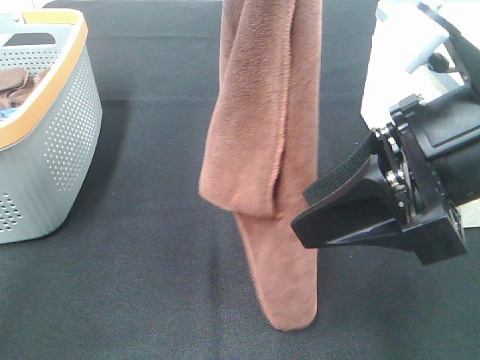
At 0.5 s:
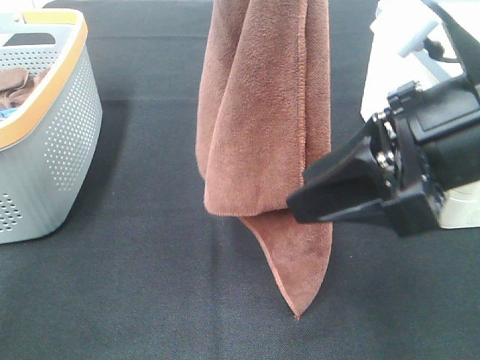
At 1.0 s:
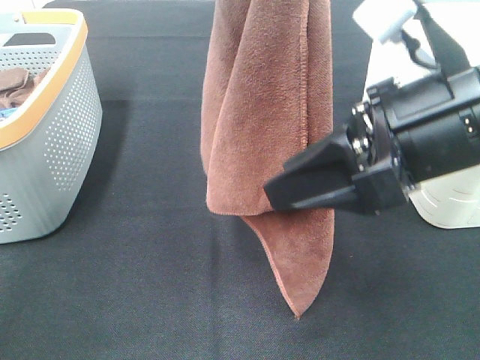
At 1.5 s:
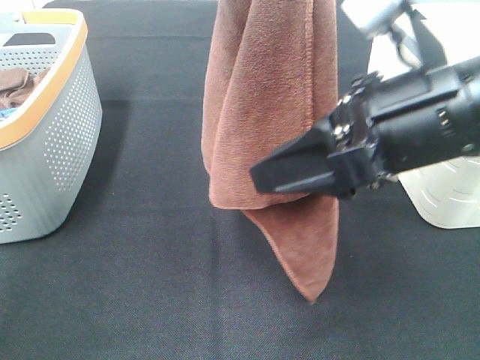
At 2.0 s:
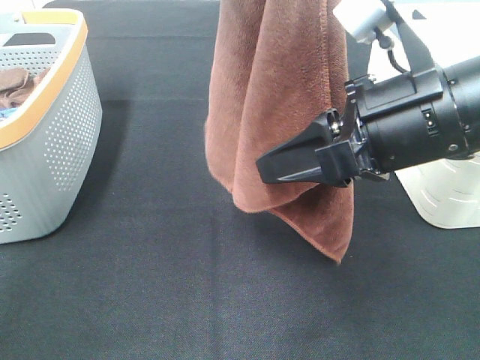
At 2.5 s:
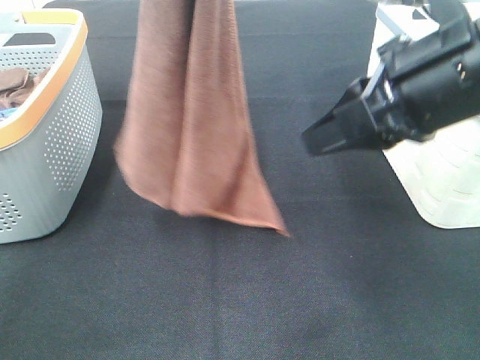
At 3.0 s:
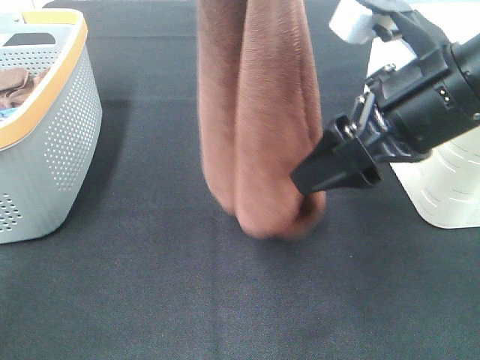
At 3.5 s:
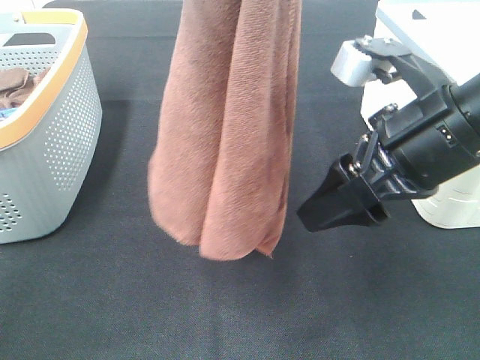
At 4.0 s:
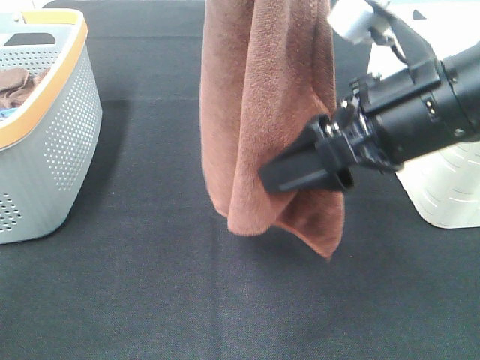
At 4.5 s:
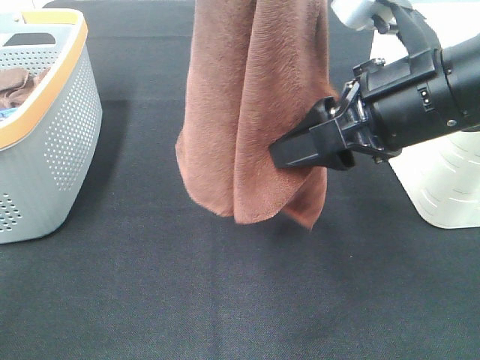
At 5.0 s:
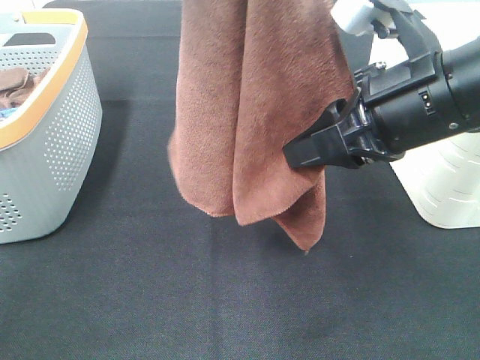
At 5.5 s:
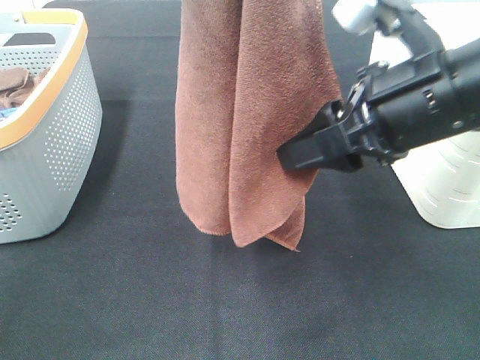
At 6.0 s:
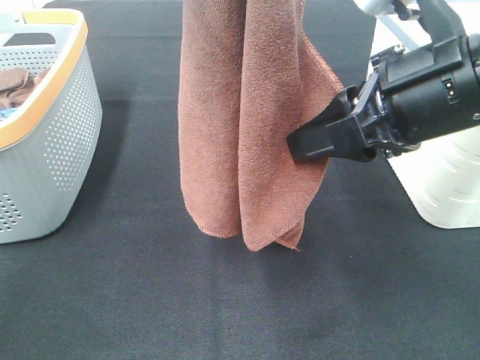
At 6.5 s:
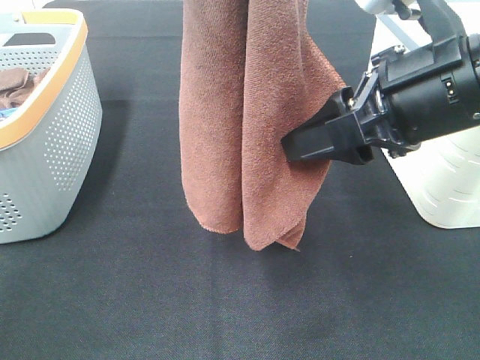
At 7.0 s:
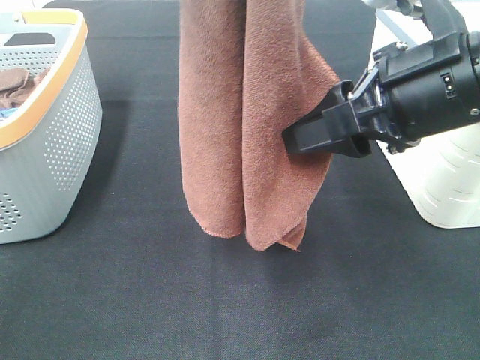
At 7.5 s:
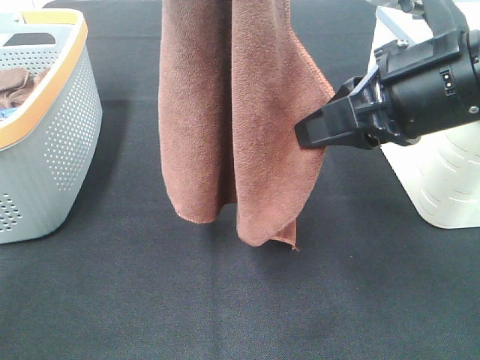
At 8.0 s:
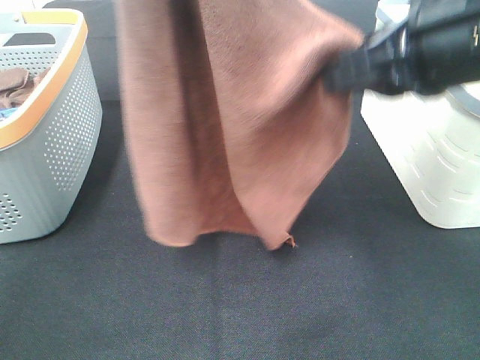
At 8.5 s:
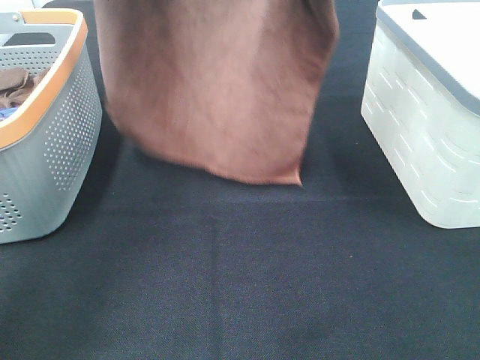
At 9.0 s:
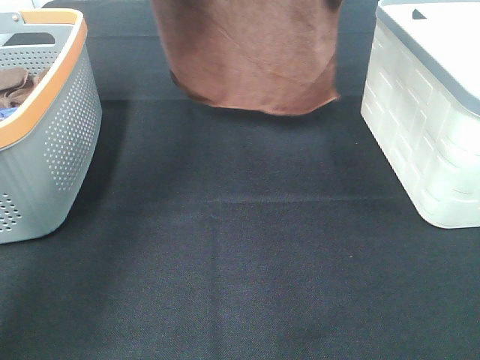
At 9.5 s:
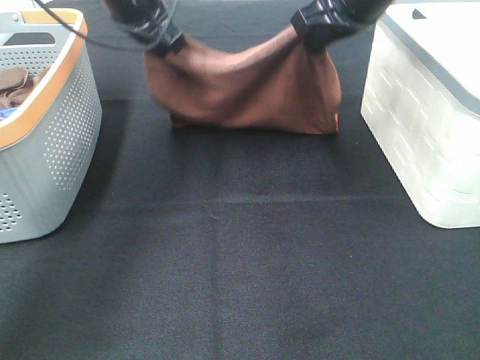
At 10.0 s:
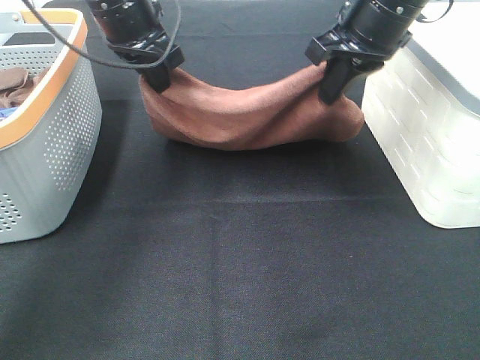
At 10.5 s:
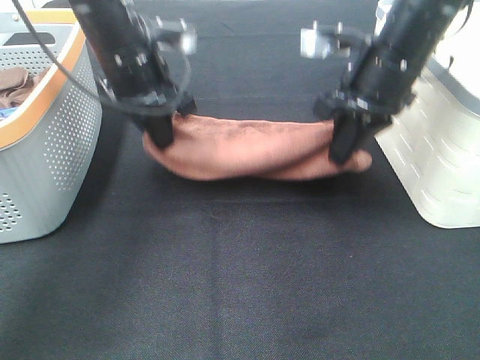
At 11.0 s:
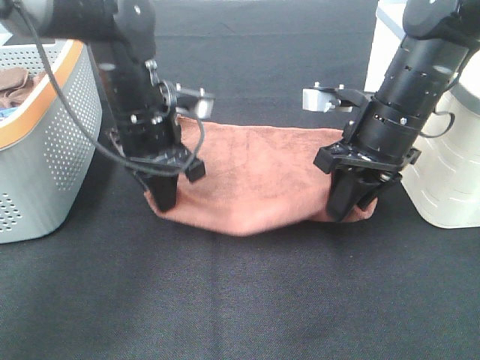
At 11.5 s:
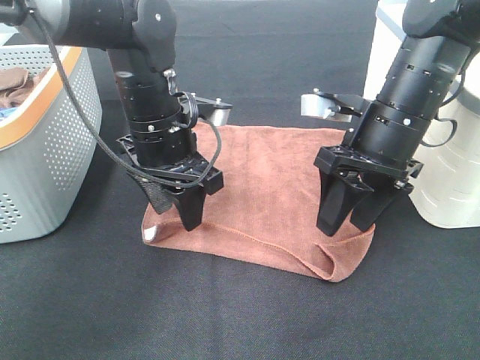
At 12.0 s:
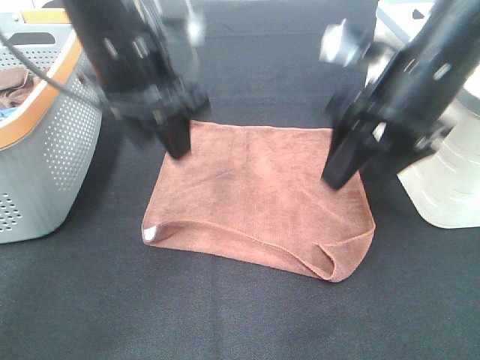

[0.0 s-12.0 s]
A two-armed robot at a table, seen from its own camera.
Task of the whole recording: Remove the towel and place it.
Step, 0.0 to 3.0 s: Right hand: grab a corner of the brown towel and straighten it.
Step, 3.5 to 4.5 s: Right hand: spread the brown towel flat on the table.
0.0 to 2.0 s: The right gripper closes up.
2.0 to 4.0 s: The right gripper opens its fingers.
4.0 to 6.0 s: The right gripper closes.
8.0 to 10.0 s: The right gripper goes about 15 cm forward; the left gripper heads downward and forward, covering about 25 cm.
10.0 to 12.0 s: Both grippers move backward, approximately 10 cm. The left gripper travels downward and back again, some 10 cm each way, and opens its fingers; the right gripper opens its fingers.

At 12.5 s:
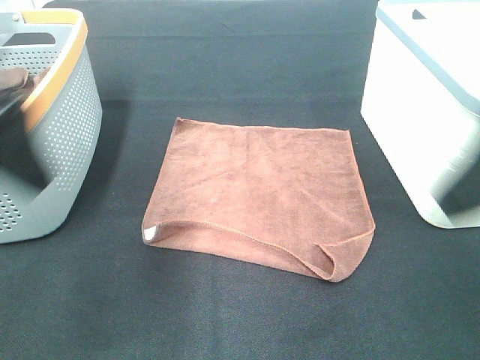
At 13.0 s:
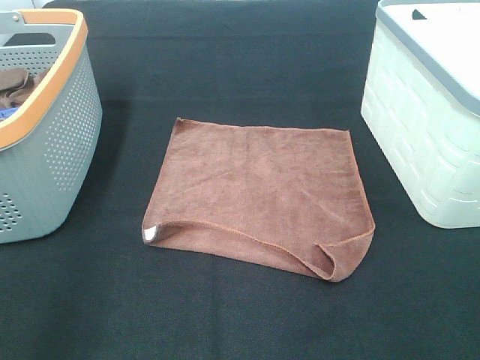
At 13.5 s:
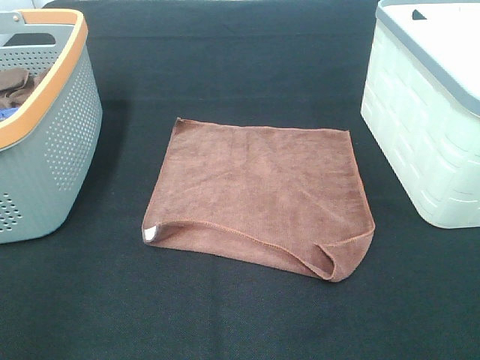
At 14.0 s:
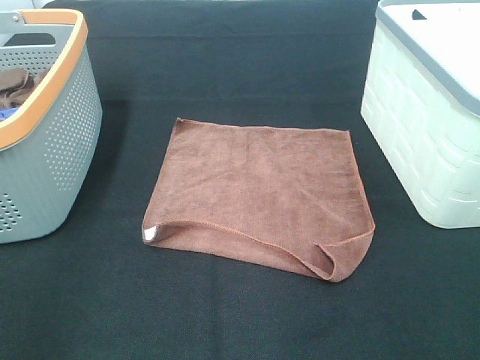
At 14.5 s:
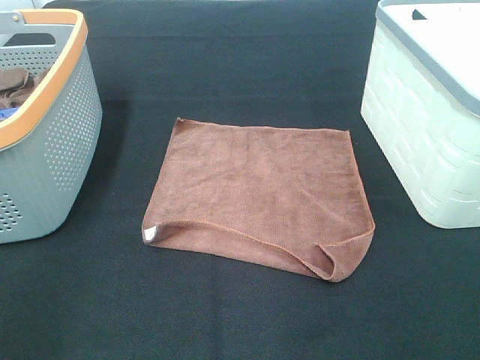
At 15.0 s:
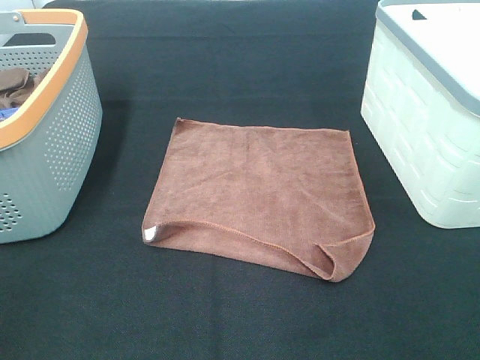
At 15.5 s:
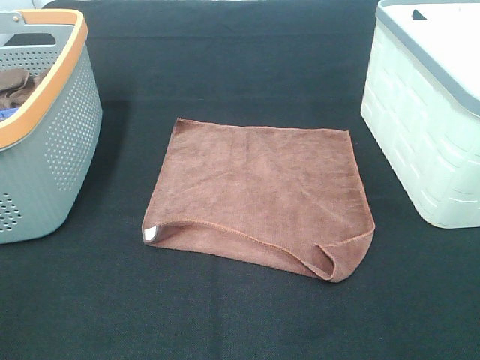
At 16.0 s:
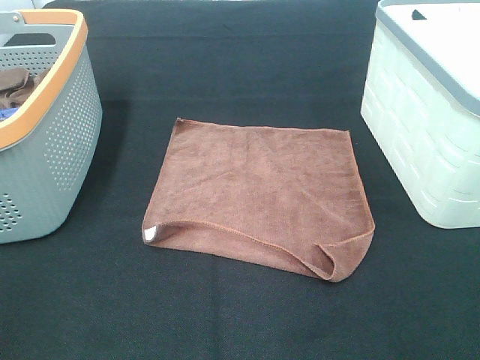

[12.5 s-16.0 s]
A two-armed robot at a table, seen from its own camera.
Task of the whole recording: Remove the towel and place it.
12.5 to 14.5 s: The right gripper heads backward and to the right, covering roughly 15 cm, while the left gripper moves backward and to the left, roughly 20 cm.

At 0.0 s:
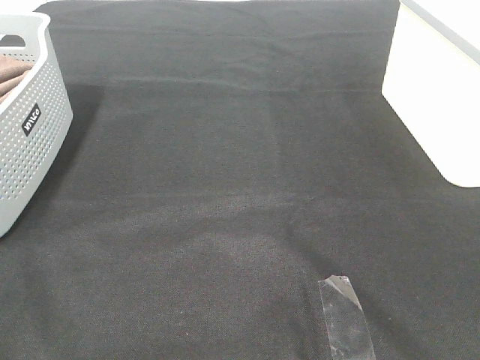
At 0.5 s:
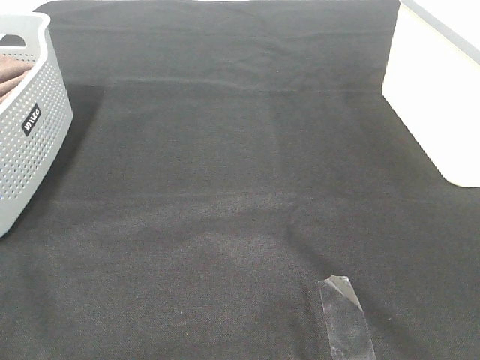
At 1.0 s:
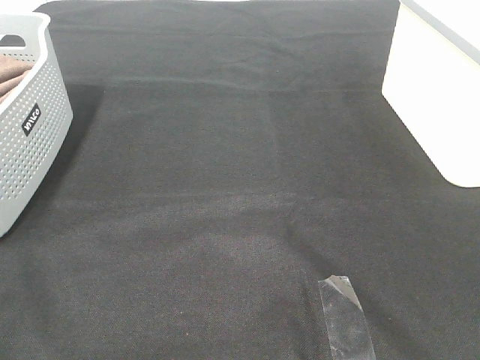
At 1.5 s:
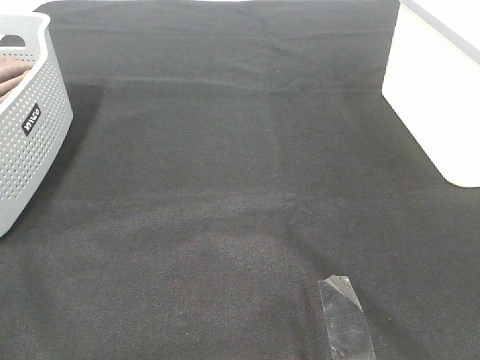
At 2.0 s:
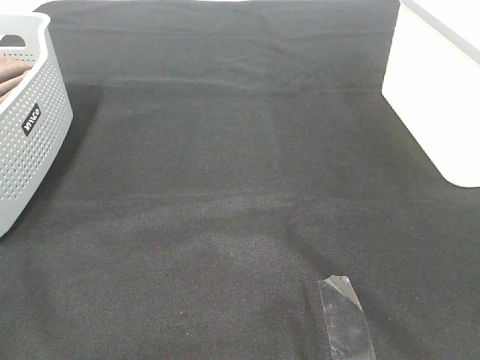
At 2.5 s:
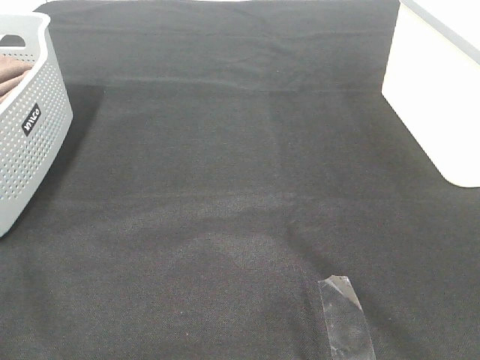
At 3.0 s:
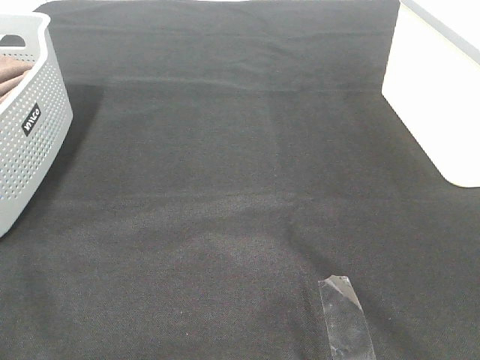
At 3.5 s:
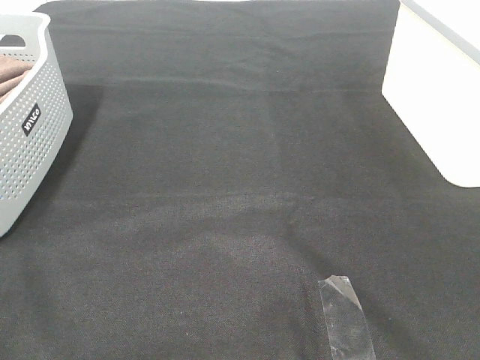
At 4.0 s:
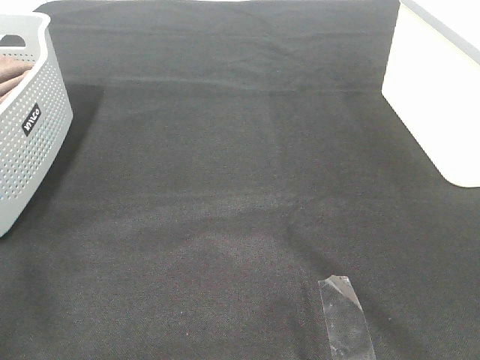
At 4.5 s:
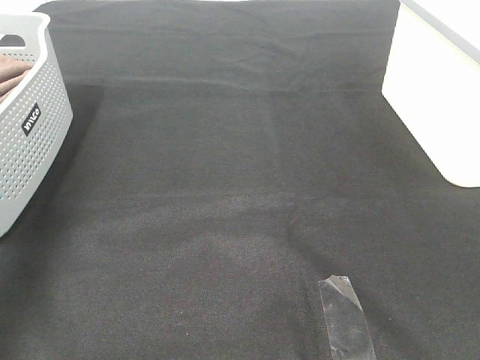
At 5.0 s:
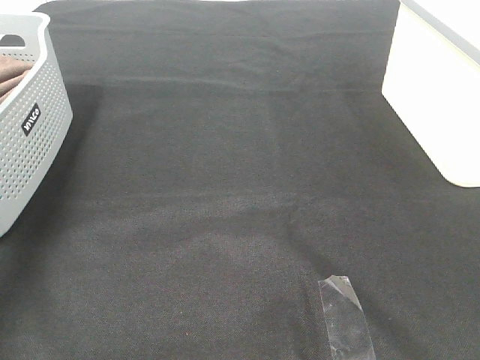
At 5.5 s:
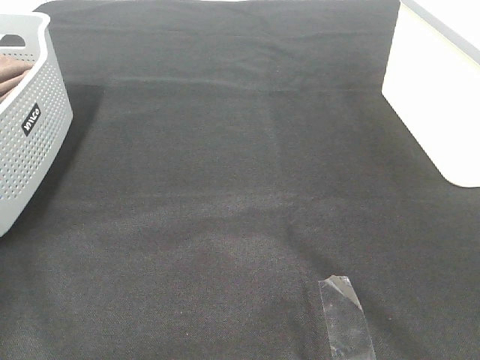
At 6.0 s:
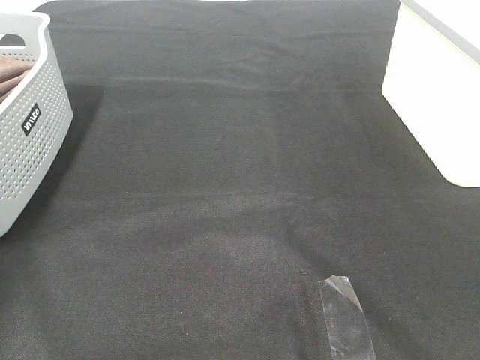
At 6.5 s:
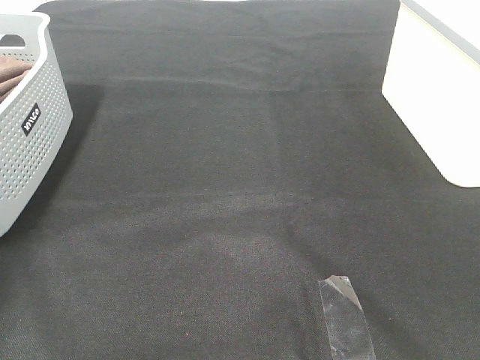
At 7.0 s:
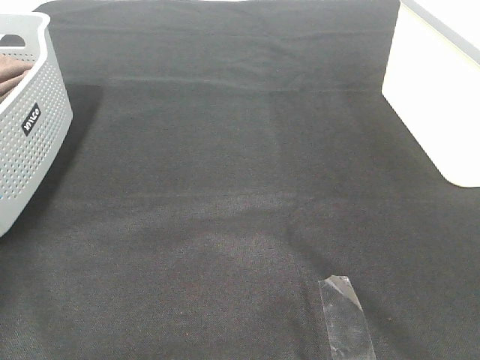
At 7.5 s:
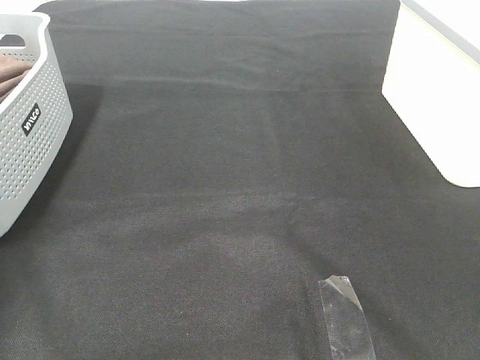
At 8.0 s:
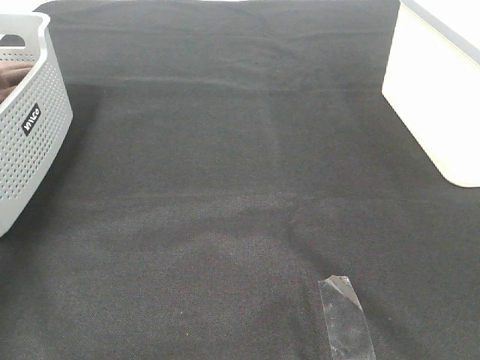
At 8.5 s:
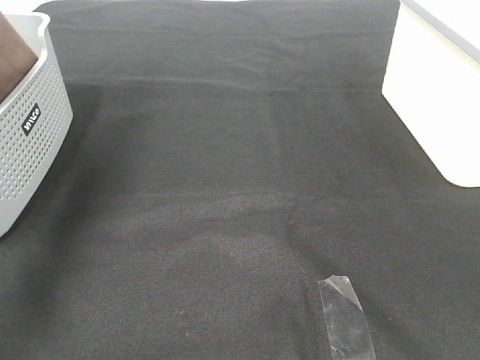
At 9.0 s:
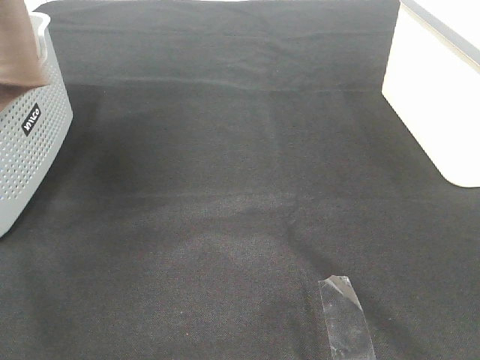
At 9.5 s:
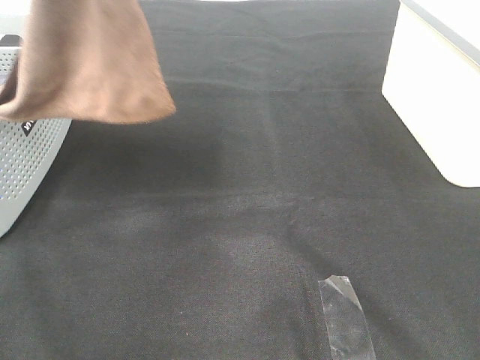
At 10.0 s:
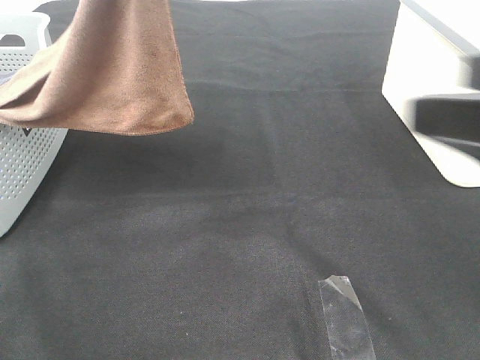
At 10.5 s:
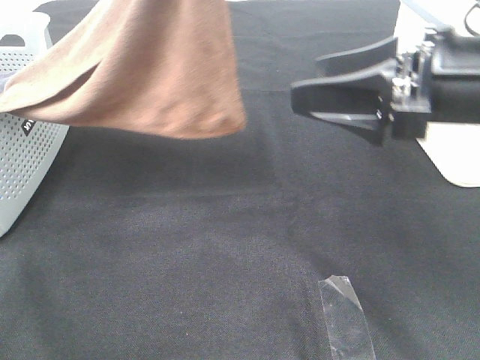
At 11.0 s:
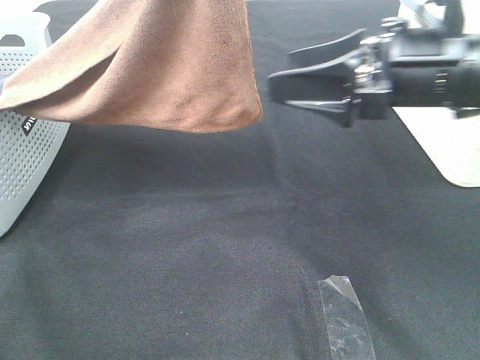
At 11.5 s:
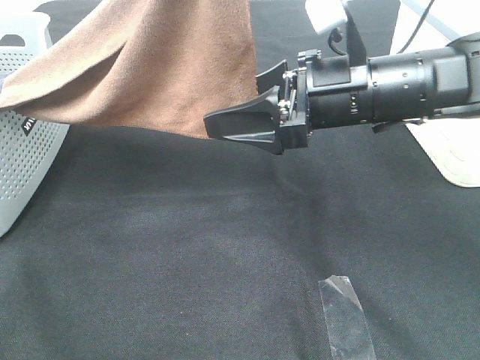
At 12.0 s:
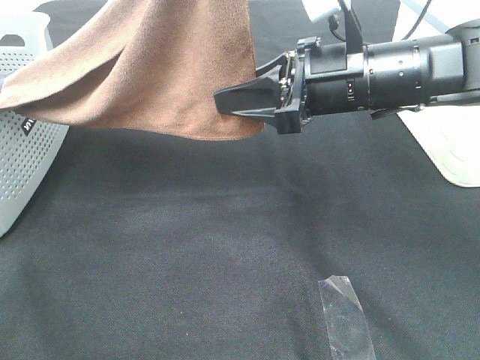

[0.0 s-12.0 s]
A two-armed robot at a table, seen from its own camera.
Task of the whole recording: Remove the towel and place it.
Step, 9.5 to 12.0 s: Right hand: grab a corner of the brown towel and straighten it.
0.0 to 2.0 s: Neither gripper changes place.
8.0 to 10.0 s: The left gripper travels to the right by roughly 25 cm; the right gripper travels forward and to the left by roughly 15 cm.
10.0 to 12.0 s: The right gripper is displaced forward, to the left and downward by approximately 20 cm, and closes its fingers.
